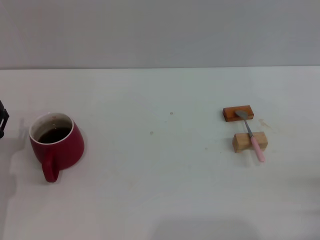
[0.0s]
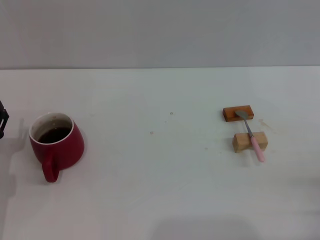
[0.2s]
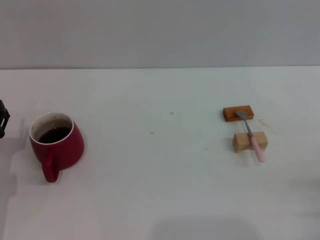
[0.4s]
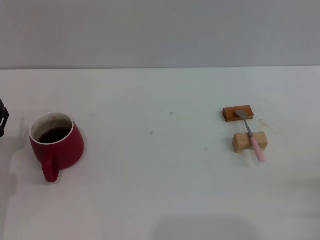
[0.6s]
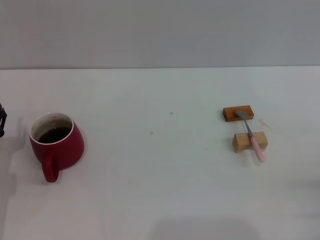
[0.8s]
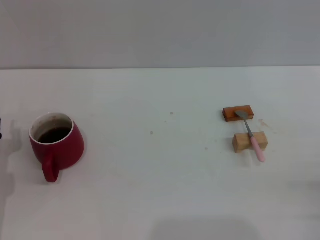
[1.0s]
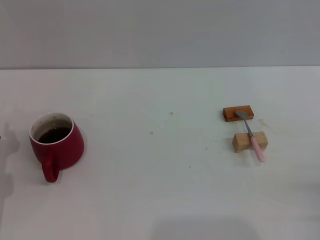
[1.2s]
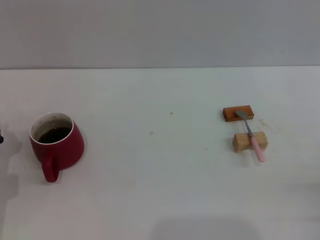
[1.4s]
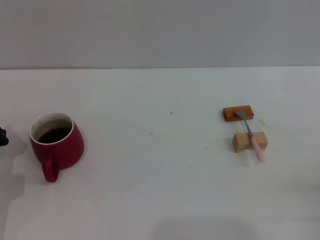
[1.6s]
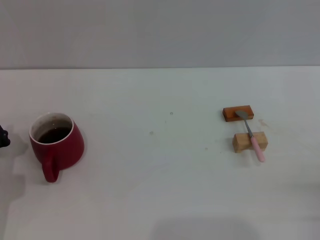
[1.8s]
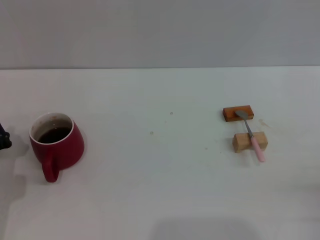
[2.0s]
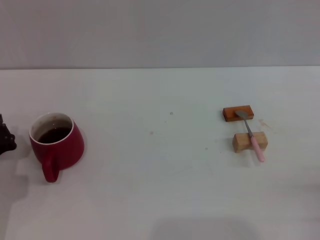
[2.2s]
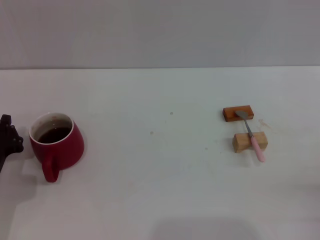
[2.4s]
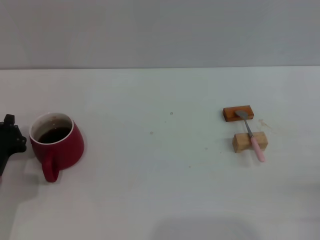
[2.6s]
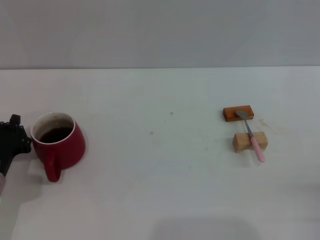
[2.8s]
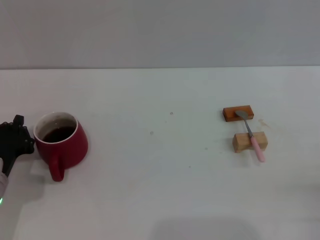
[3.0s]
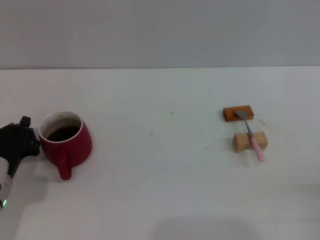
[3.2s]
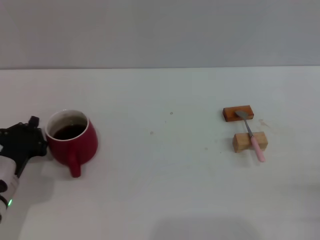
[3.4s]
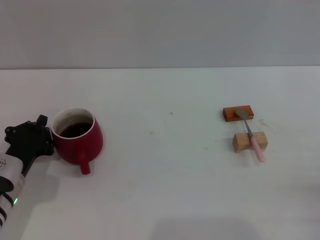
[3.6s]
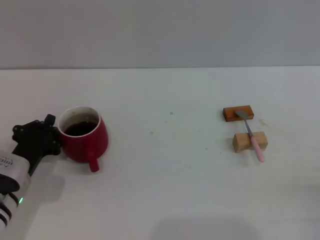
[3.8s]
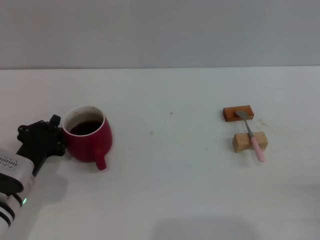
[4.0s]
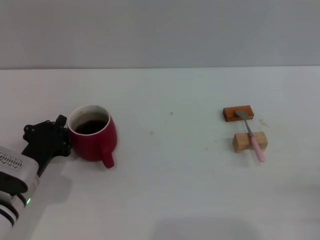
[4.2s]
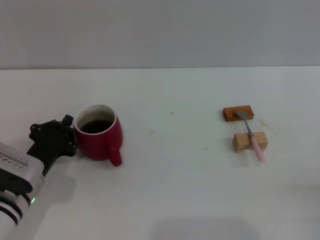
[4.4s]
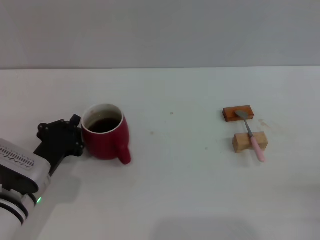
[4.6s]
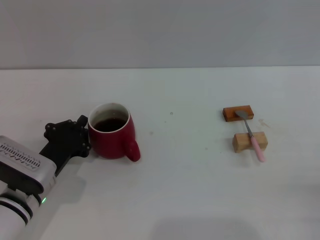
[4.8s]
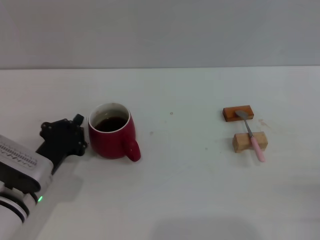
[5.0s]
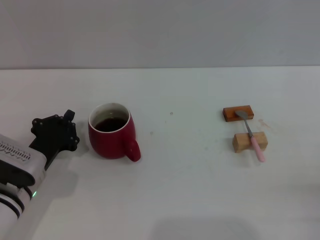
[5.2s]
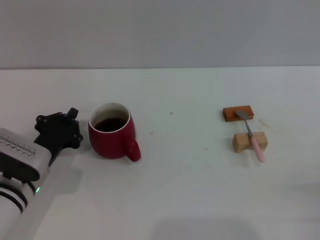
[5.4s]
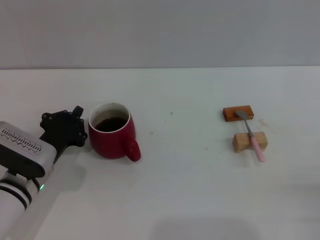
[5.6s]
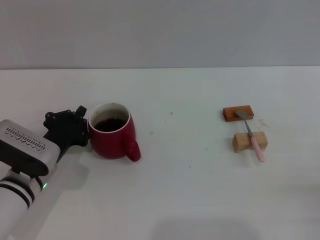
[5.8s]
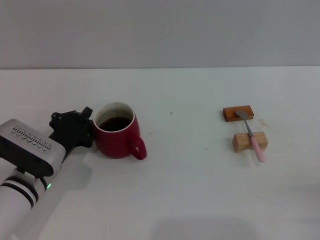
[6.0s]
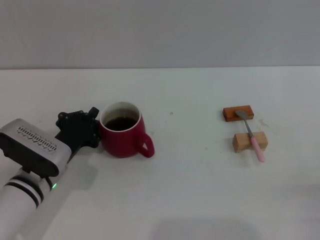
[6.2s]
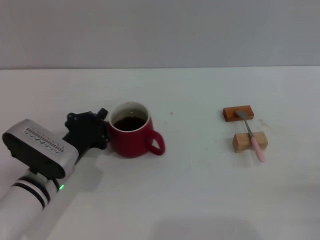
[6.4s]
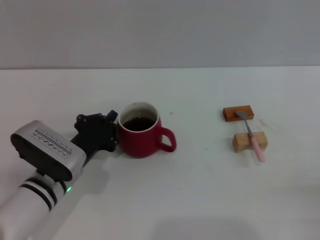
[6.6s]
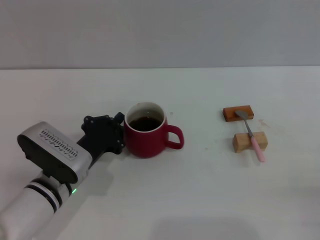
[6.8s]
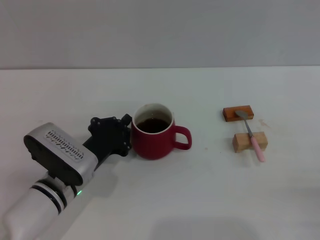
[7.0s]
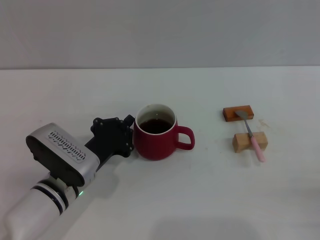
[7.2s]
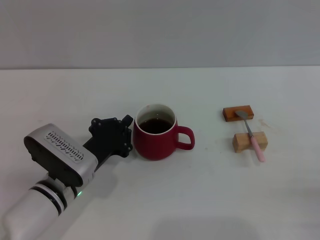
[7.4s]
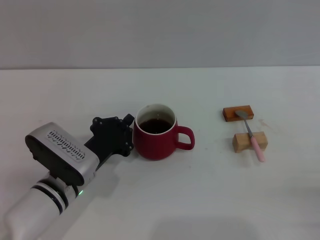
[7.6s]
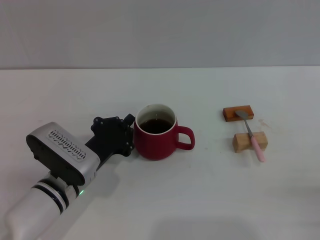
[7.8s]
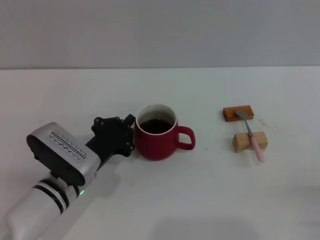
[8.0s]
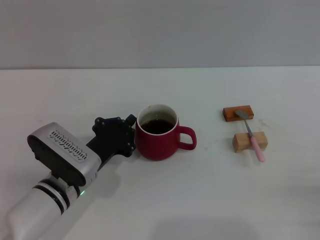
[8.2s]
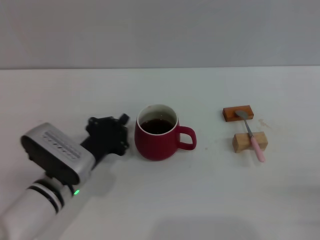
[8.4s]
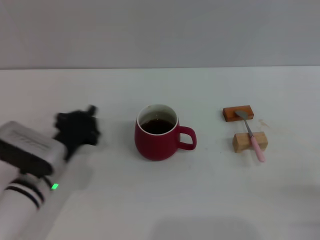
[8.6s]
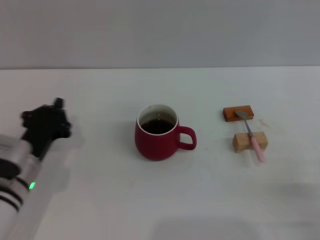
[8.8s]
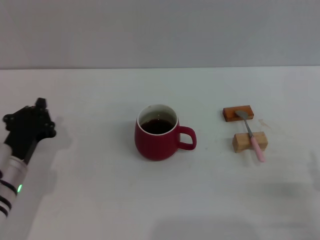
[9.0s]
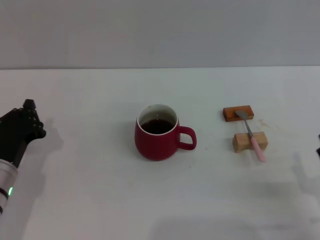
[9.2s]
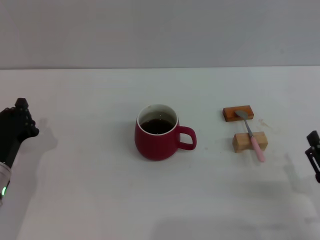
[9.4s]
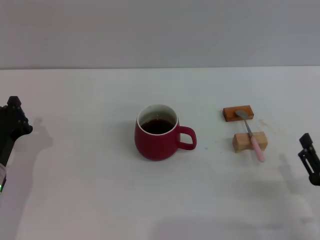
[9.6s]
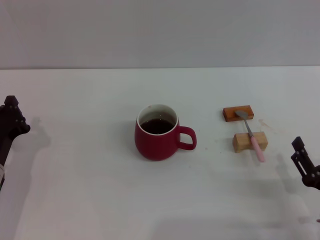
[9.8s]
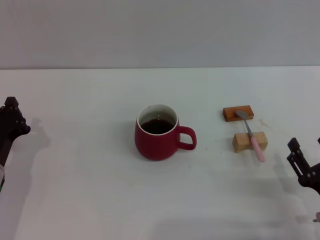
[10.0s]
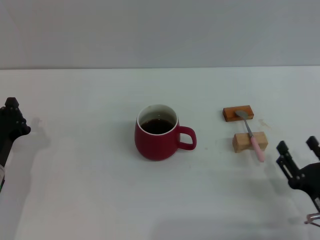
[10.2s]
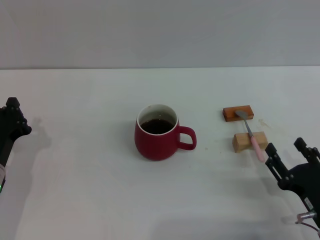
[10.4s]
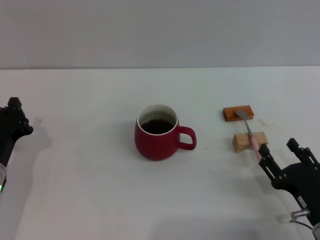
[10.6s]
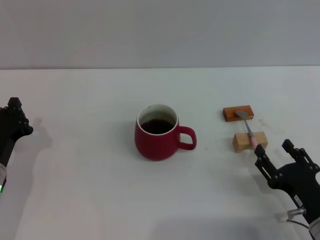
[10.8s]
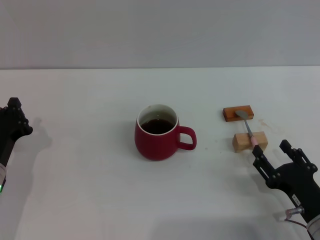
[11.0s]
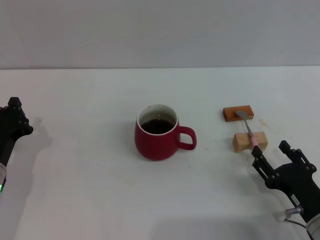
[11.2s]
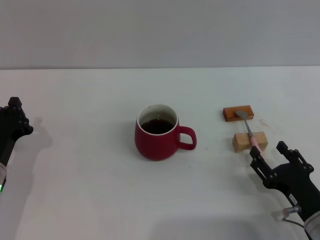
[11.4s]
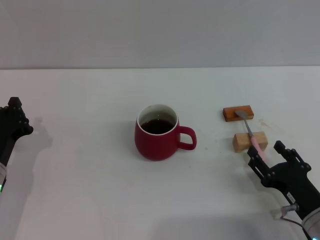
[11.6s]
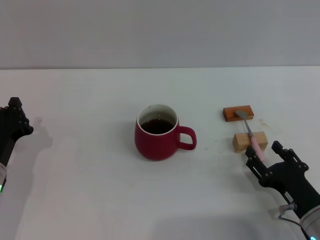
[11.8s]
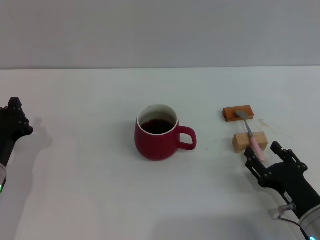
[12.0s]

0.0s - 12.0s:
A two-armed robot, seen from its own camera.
Task of the whole recording: Move the red cup to the center, lift the pink spoon, stir it three times in the cup, and put the spoon into the cup.
Step, 0.0s - 8.8s: Move the cup with coffee to the center of view with the left gripper.
1.6s - 3.0s: The grippers move only a little.
3.0s - 4.4s: The grippers make only small movements.
4.4s - 6.0s: There are only small adjustments of the grippers.
6.0s - 7.6s: The grippers make only small movements.
7.6s - 9.0s: The left gripper goes approximately 10 cm to the left.
9.0s - 10.4s: The grippers make only small movements.
10.4s - 12.0s: The grippers make only small movements.

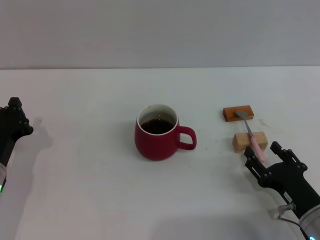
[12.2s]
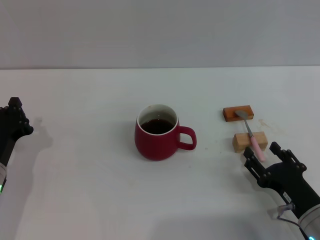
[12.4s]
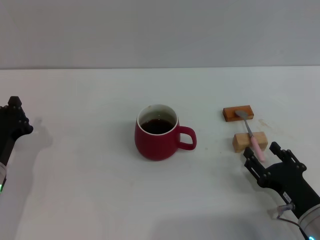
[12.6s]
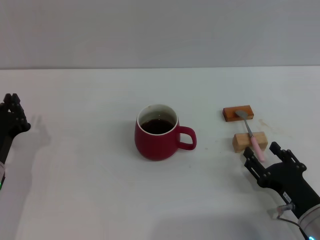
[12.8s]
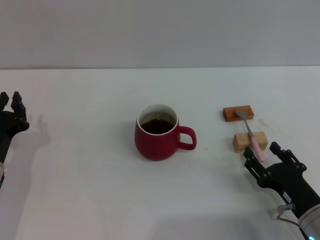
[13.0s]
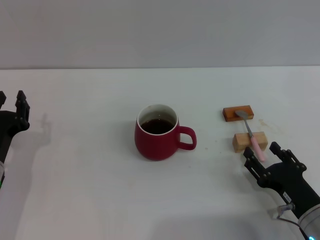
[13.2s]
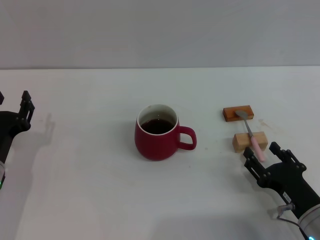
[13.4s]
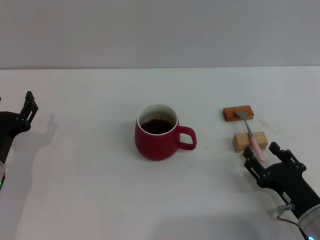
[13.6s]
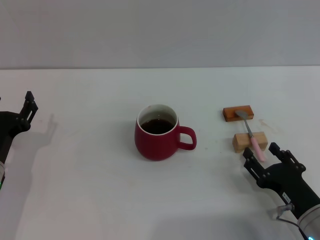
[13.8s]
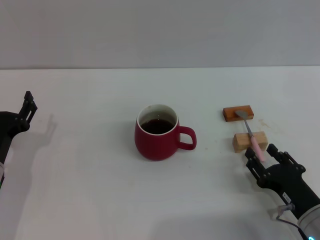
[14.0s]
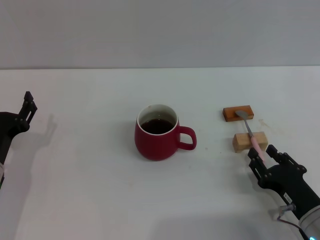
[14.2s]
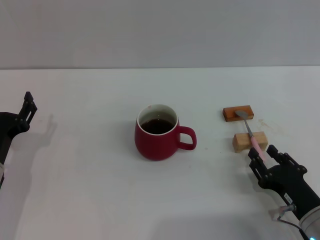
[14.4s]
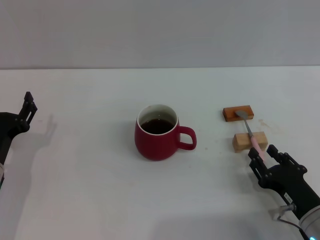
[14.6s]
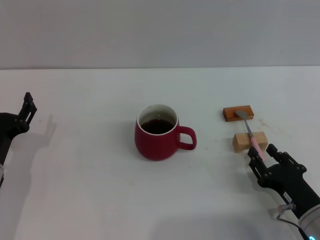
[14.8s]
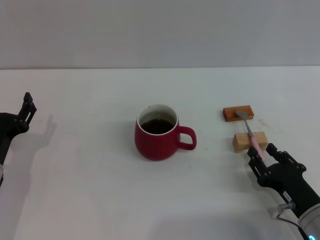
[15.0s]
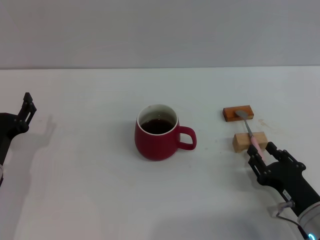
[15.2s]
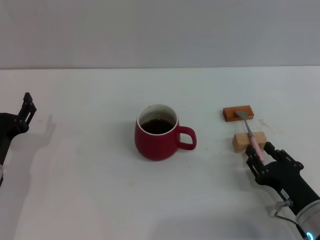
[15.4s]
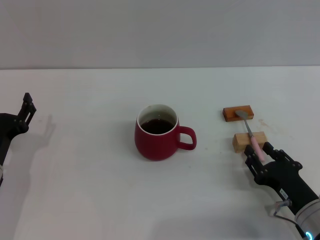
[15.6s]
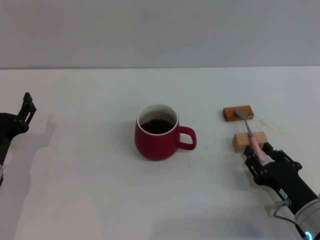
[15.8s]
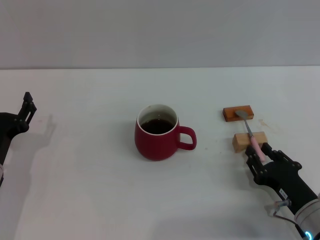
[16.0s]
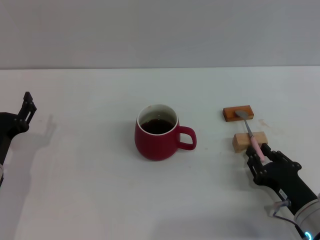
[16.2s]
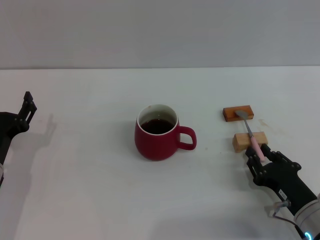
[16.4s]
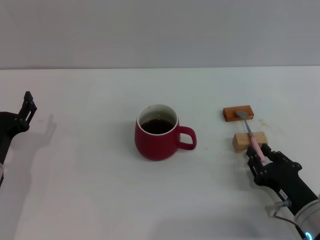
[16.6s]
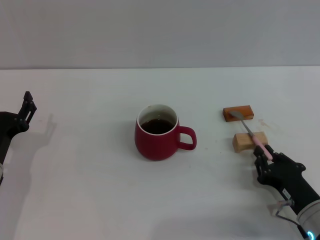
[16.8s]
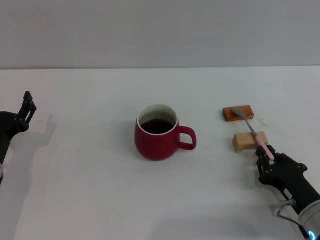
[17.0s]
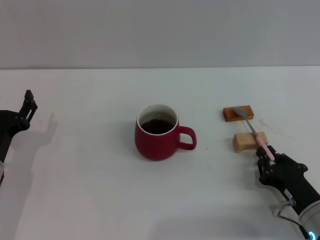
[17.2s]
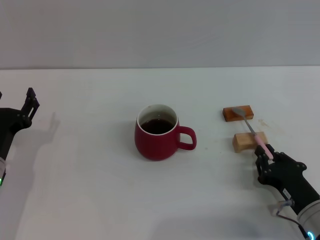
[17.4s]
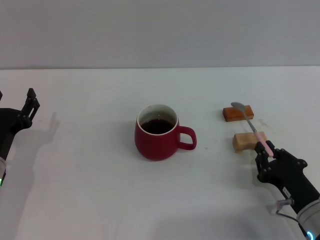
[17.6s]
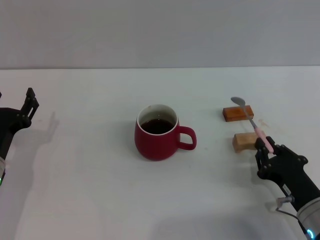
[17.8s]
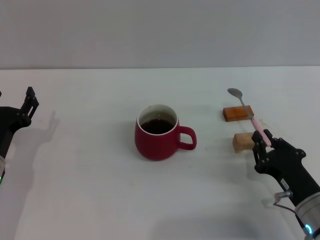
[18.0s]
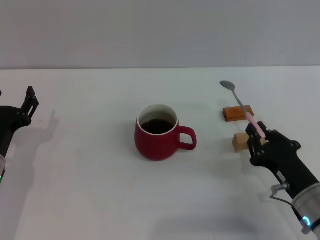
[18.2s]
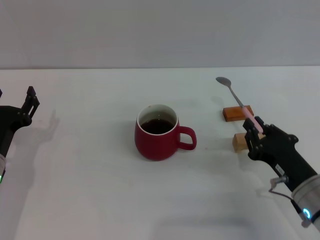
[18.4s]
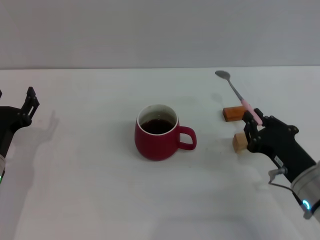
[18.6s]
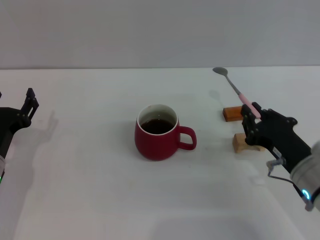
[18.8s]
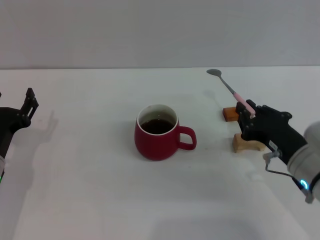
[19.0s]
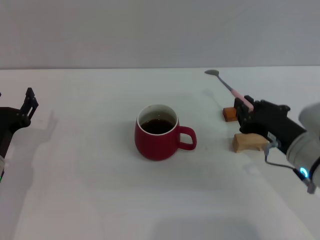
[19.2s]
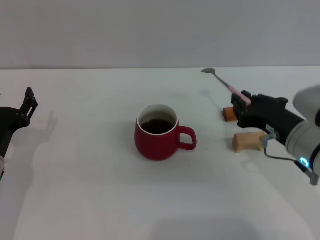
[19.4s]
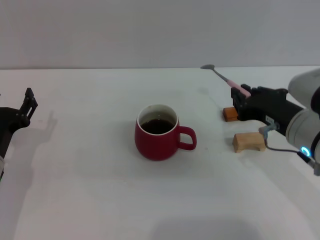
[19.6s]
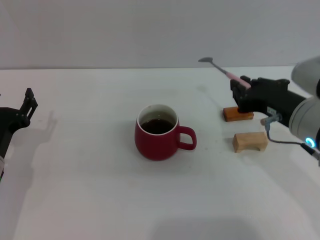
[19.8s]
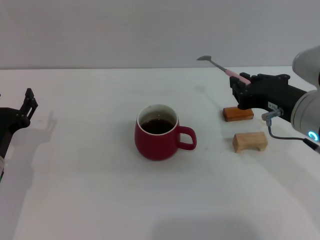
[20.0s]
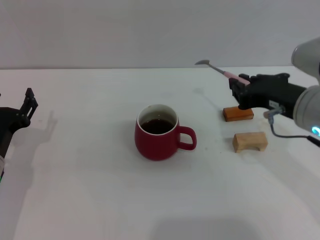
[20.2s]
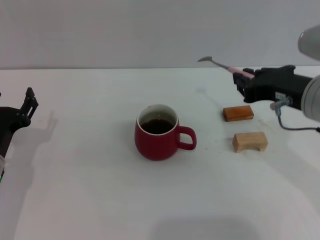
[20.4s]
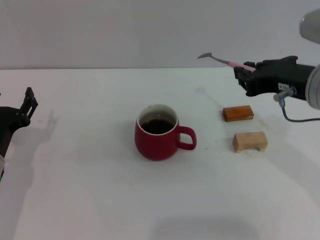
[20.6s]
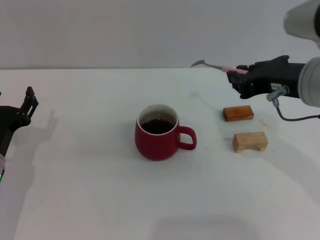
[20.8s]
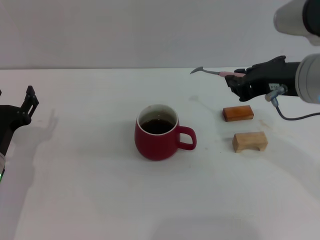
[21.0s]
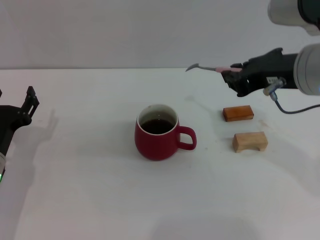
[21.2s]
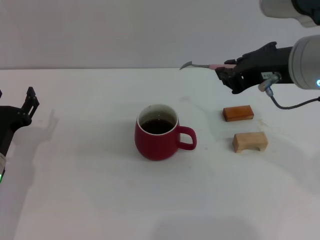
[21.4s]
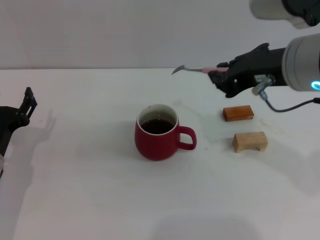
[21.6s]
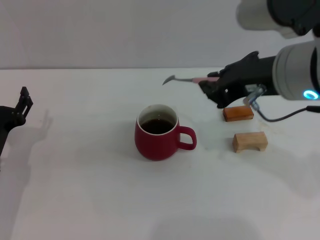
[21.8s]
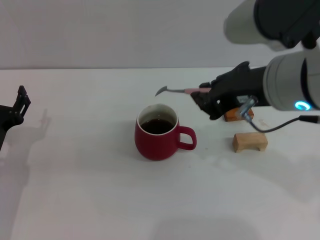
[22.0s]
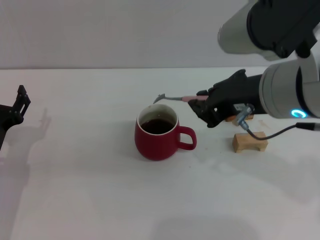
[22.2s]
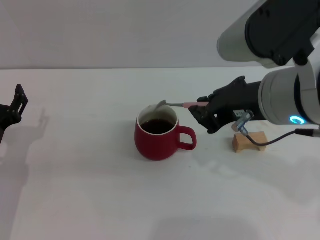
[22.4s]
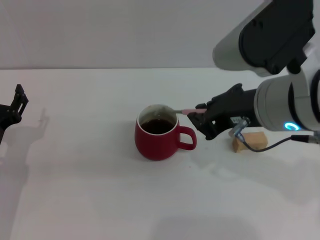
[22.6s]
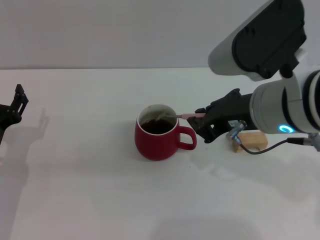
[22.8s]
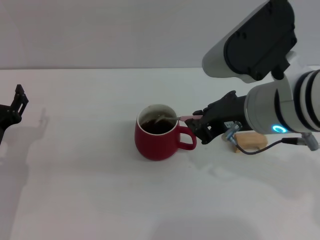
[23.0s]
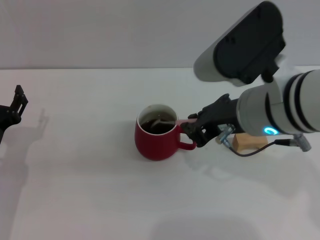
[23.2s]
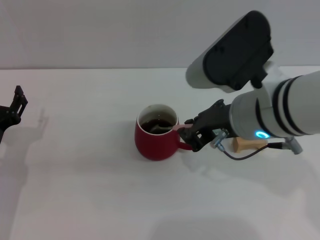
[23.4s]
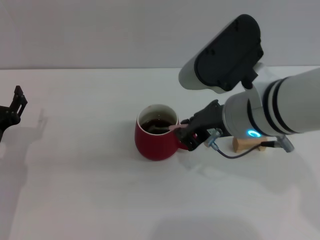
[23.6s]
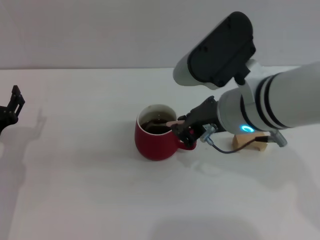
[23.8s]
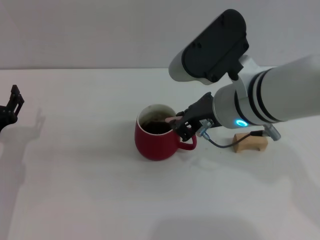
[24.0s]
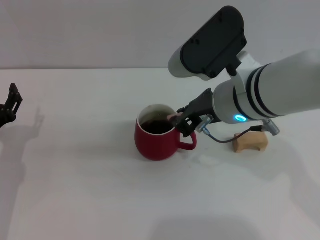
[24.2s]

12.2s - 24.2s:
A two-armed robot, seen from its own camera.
Task of the whole recording: Move the red cup to the center, lift the pink spoon, stir it three times in the cup, and put the spoon into the cup.
Step, 12.2s - 18.2s: Pick up the spoon with the right gripper.
12.2s - 13.8s: The left gripper opens up.
13.8s - 15.2s: The right gripper closes up.
15.2s - 16.6s: Both grippers stay about where they are.
16.6s - 18.2s: The right gripper closes.
18.2s - 19.8s: The right gripper goes roughly 15 cm upward.
19.8s - 21.2s: The right gripper travels upward by roughly 10 cm.
21.2s - 22.6s: The right gripper shifts by some 5 cm.
22.6s - 24.2s: The right gripper heads forward, covering about 5 cm.
